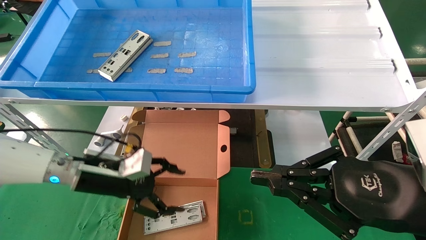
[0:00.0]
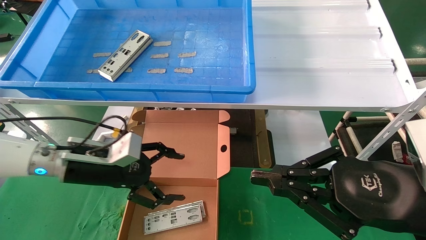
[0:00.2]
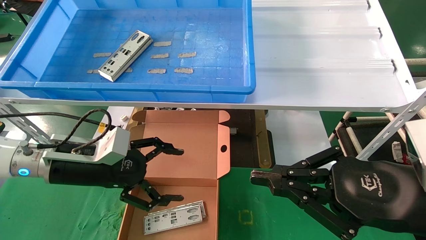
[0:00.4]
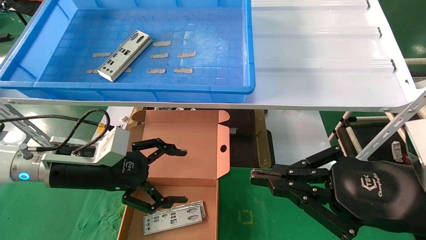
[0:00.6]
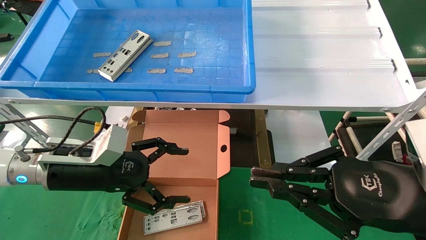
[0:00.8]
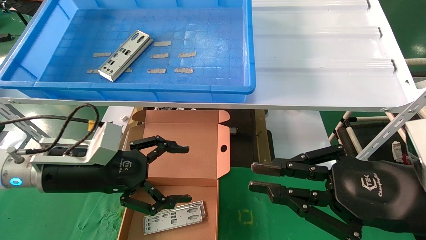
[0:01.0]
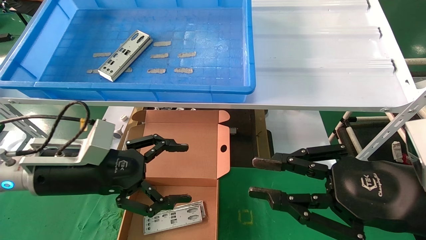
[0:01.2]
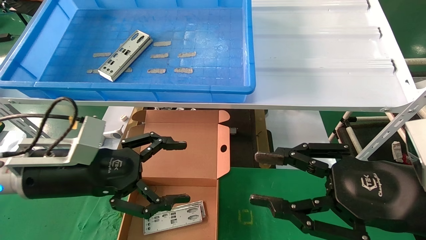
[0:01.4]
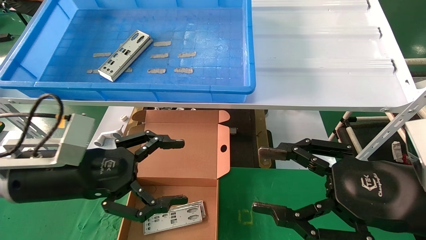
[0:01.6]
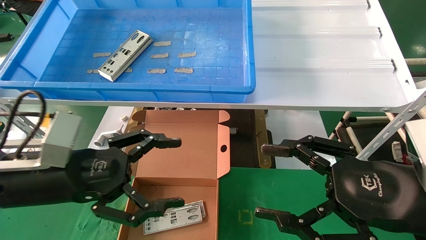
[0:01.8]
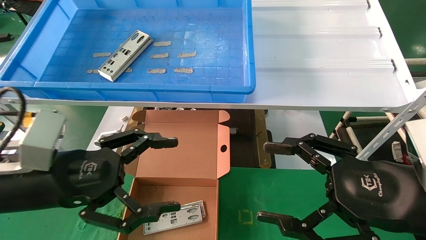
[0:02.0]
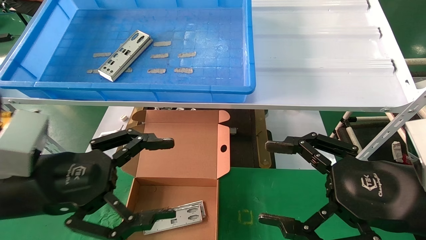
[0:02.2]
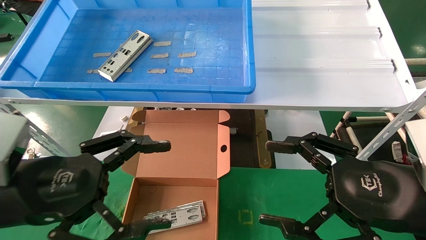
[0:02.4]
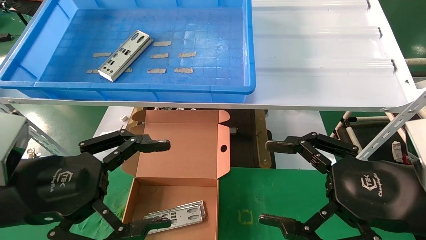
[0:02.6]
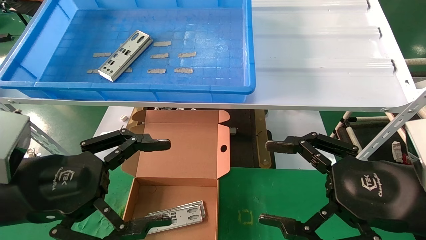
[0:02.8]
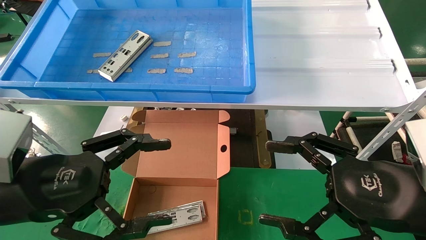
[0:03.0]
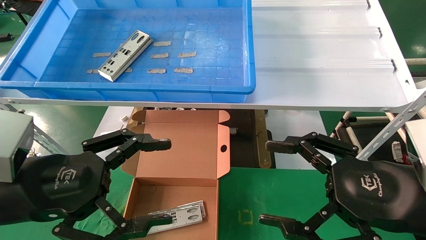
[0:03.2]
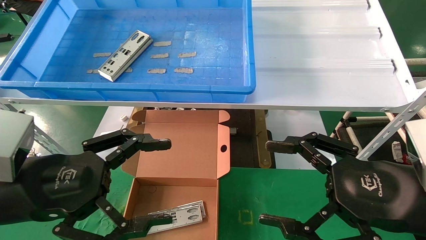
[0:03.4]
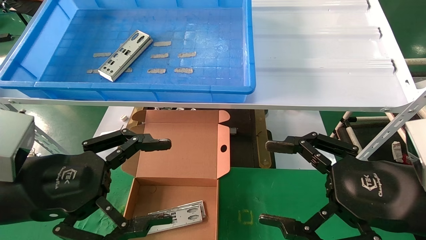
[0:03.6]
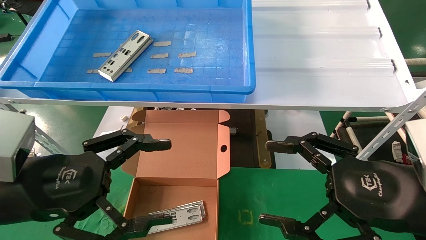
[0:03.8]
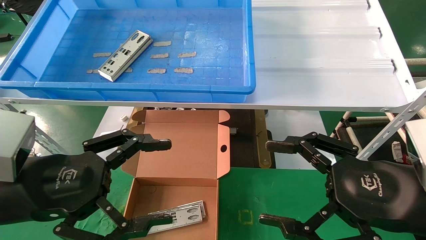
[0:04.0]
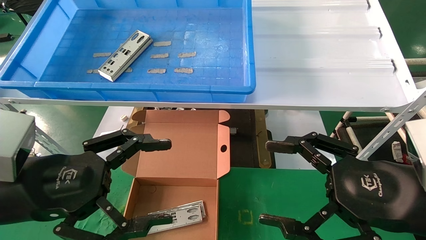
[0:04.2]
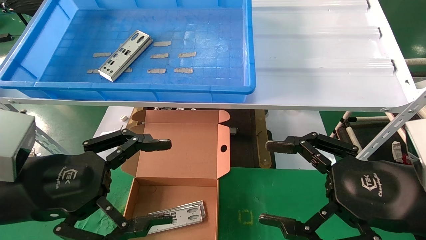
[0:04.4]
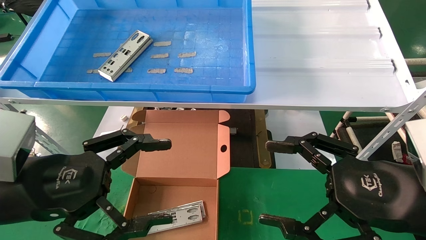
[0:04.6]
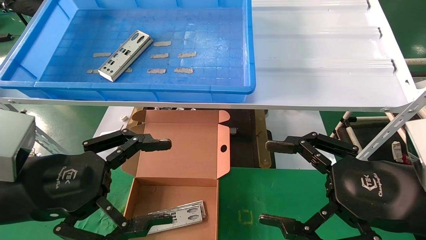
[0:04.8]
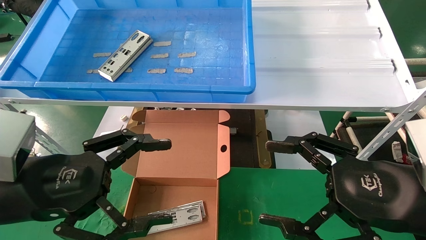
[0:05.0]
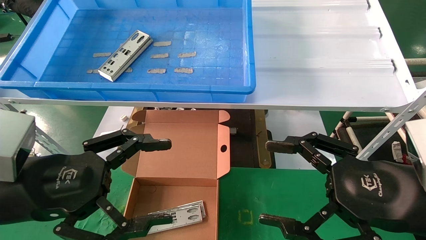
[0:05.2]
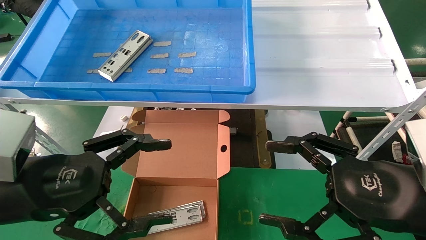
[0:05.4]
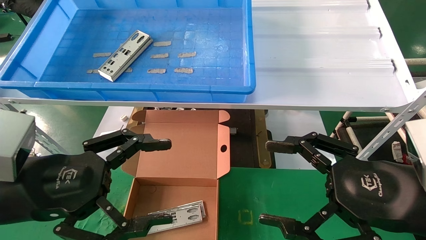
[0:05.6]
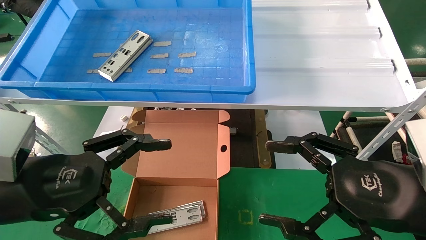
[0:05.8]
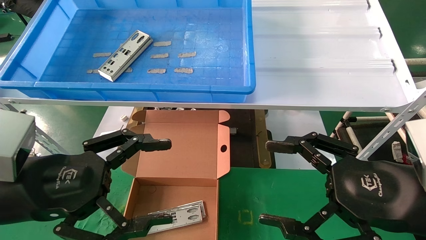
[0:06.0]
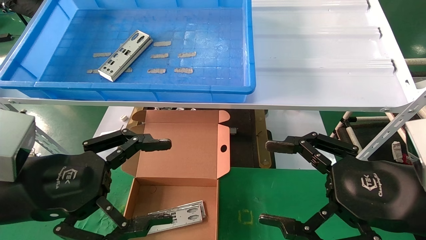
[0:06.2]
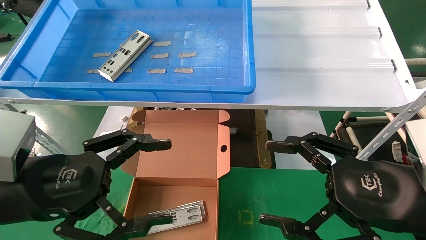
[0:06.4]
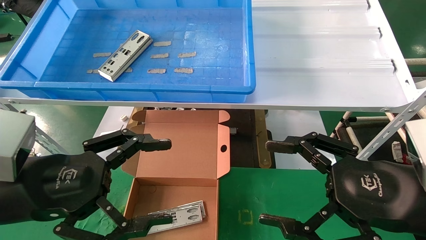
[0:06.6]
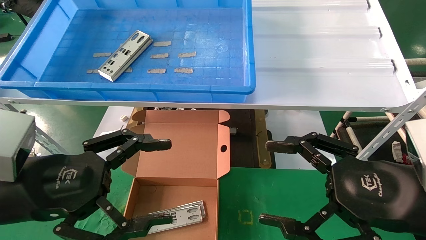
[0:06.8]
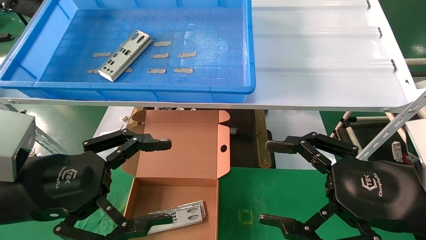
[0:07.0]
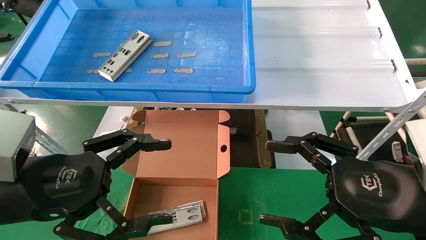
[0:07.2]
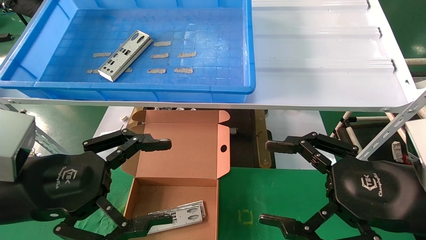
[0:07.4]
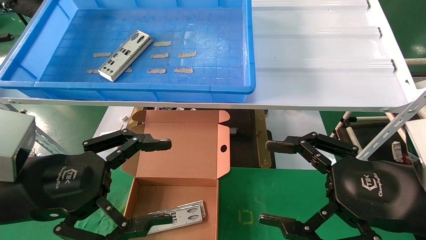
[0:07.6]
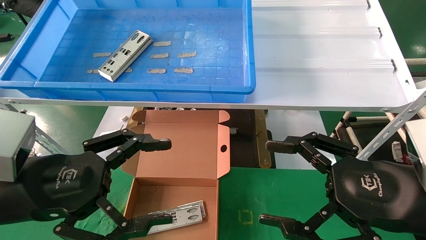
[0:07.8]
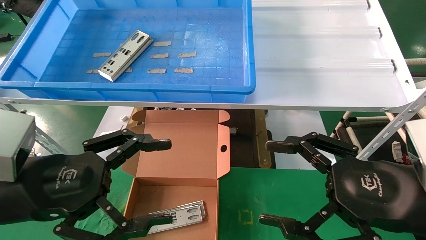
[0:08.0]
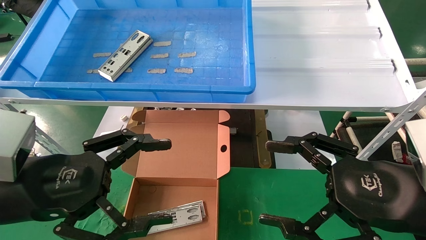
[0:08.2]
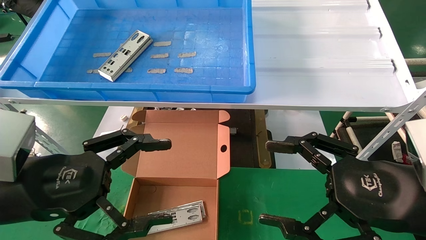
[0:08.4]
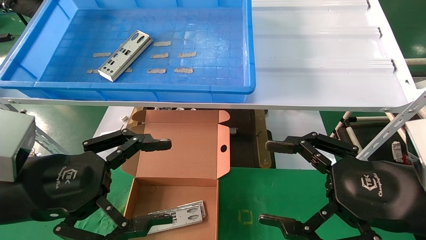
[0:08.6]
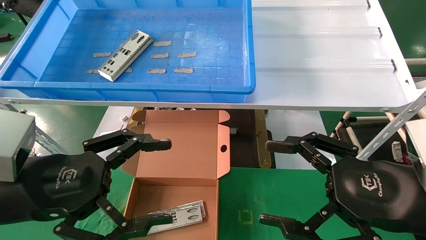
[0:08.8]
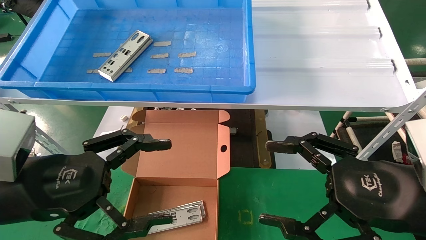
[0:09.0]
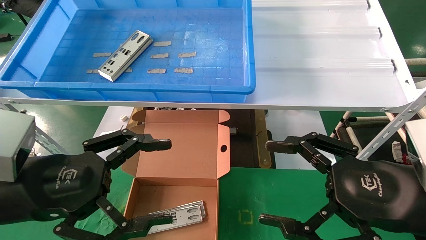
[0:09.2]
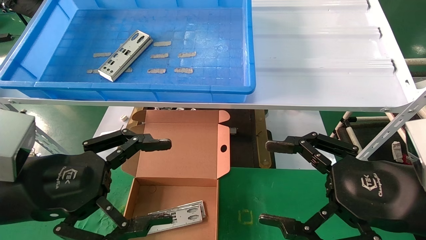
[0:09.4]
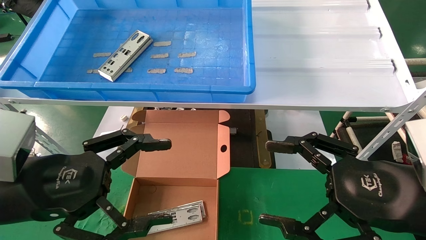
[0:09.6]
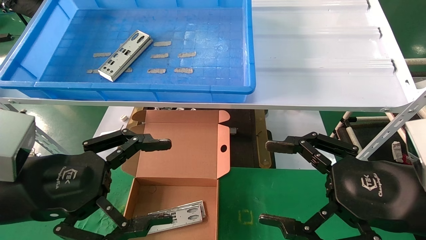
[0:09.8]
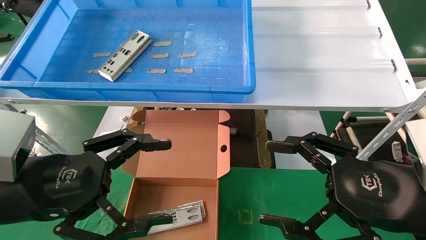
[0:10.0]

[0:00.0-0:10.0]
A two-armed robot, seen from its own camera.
Task of the whole recording: pick up the parts on the tray and put them in the cardboard box.
0:00.0 to 0:01.4: The right gripper opens; the left gripper shifts about 10 cm backward.
0:01.4 to 0:02.8: The left gripper moves backward, about 10 cm. Meanwhile the right gripper opens up.
0:02.8 to 0:10.0: Both grippers stay put.
